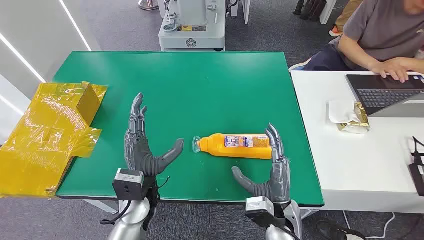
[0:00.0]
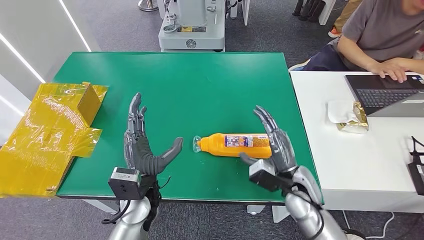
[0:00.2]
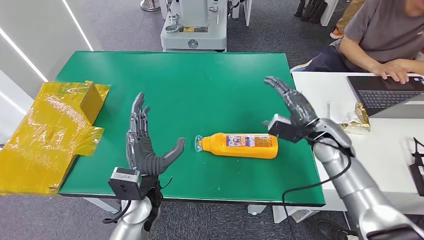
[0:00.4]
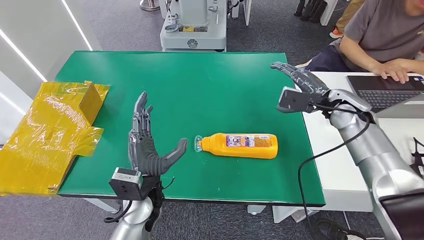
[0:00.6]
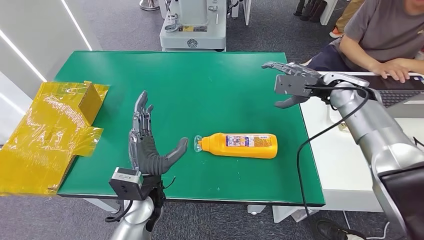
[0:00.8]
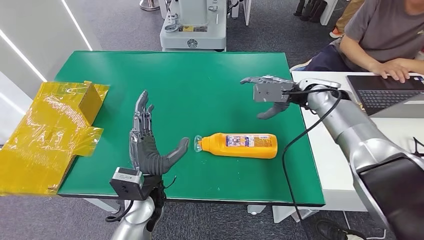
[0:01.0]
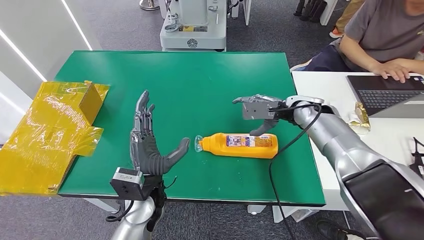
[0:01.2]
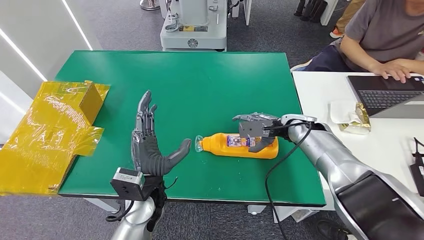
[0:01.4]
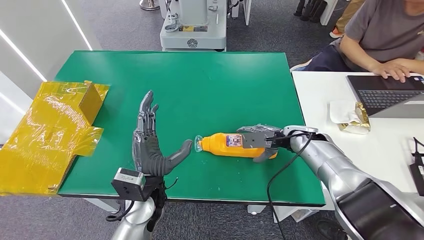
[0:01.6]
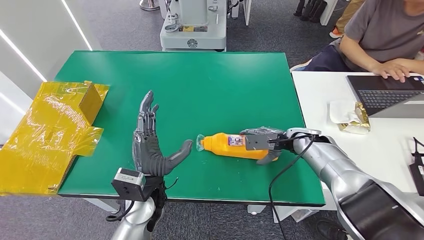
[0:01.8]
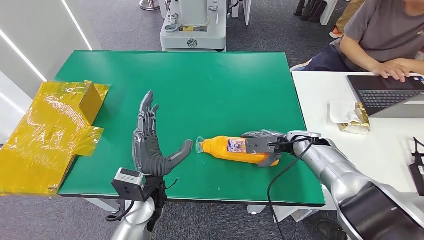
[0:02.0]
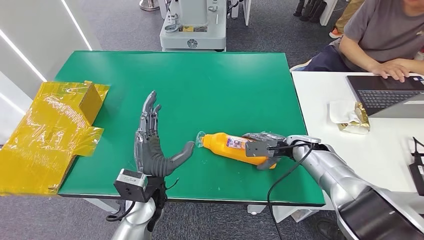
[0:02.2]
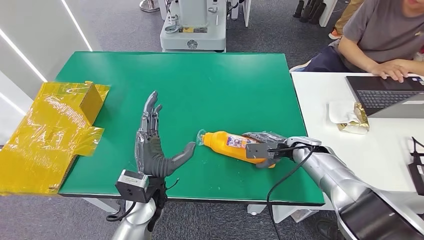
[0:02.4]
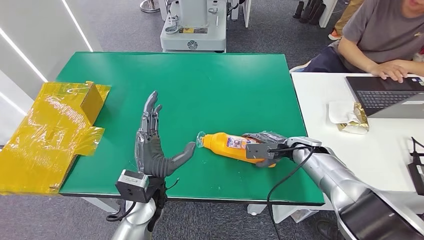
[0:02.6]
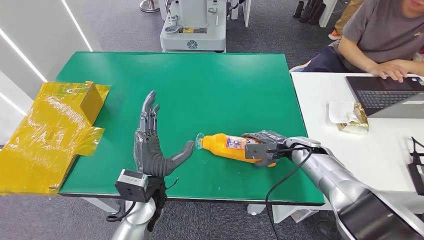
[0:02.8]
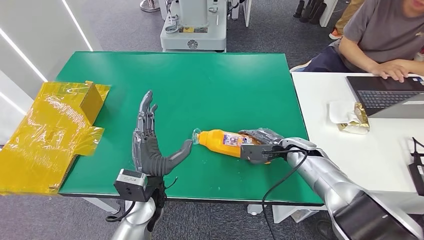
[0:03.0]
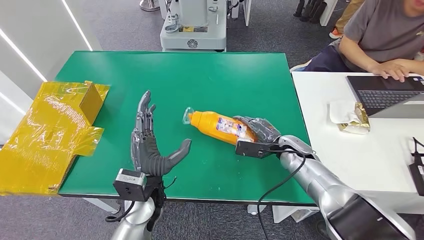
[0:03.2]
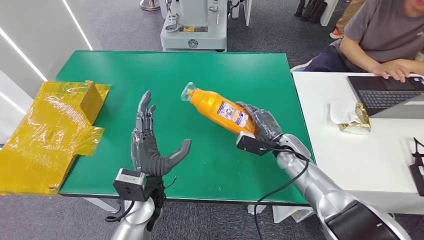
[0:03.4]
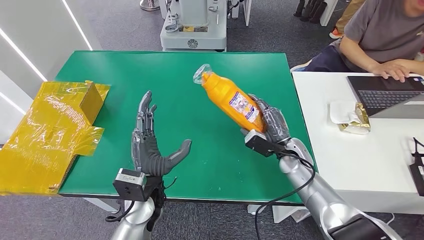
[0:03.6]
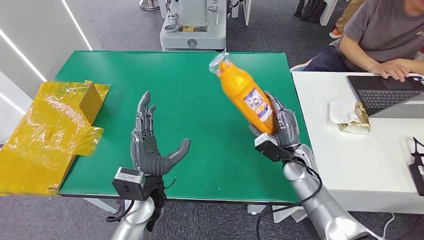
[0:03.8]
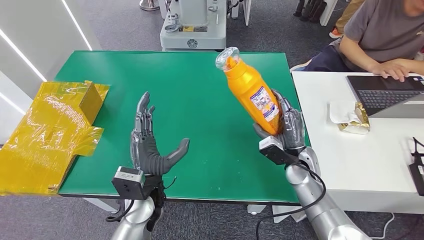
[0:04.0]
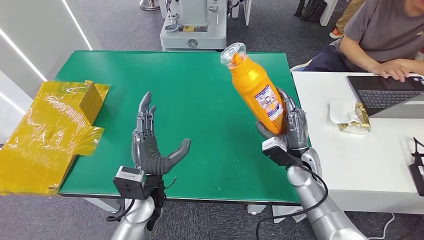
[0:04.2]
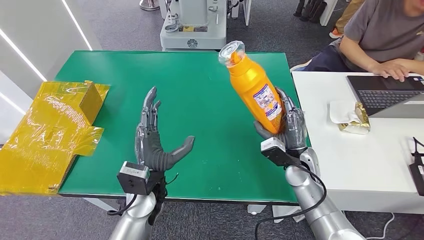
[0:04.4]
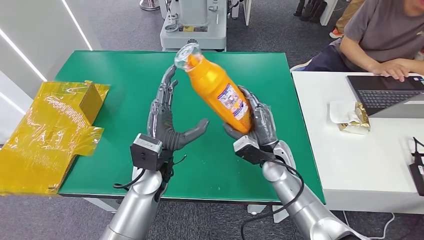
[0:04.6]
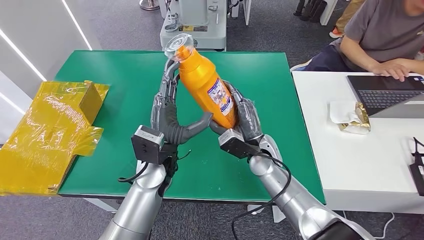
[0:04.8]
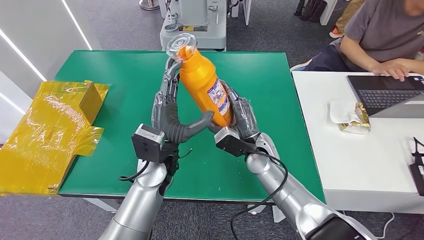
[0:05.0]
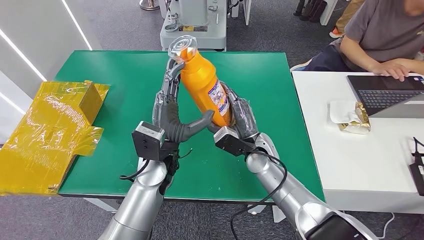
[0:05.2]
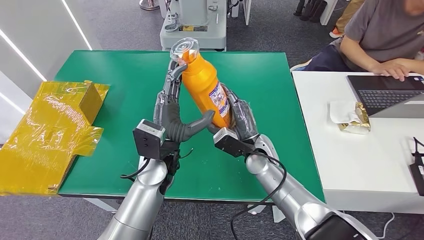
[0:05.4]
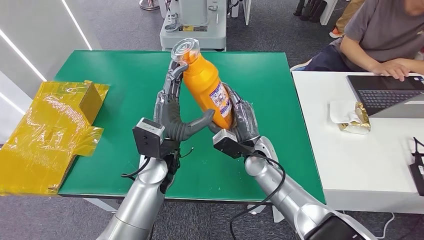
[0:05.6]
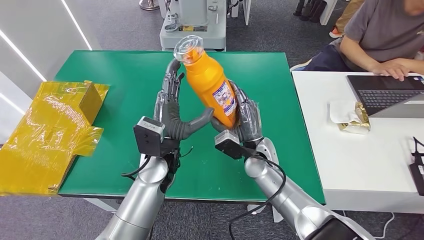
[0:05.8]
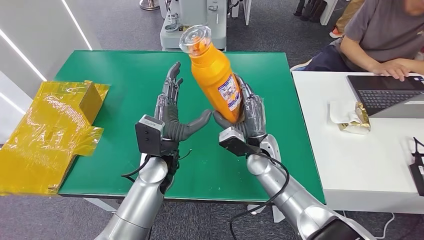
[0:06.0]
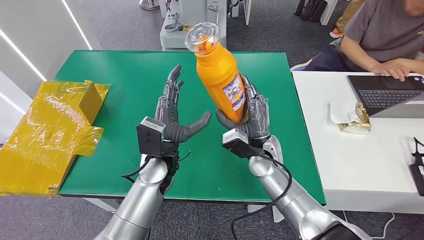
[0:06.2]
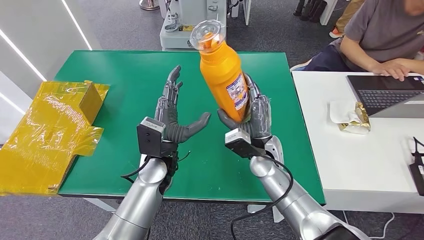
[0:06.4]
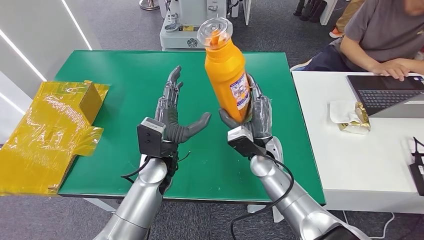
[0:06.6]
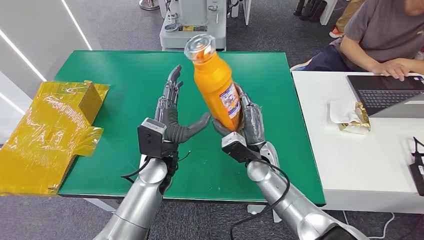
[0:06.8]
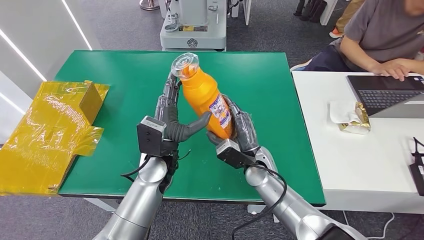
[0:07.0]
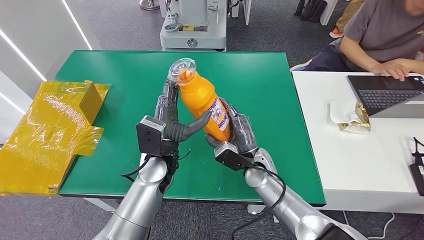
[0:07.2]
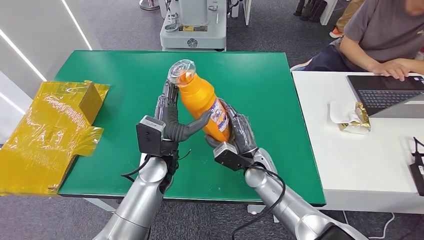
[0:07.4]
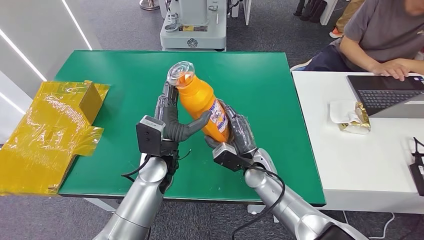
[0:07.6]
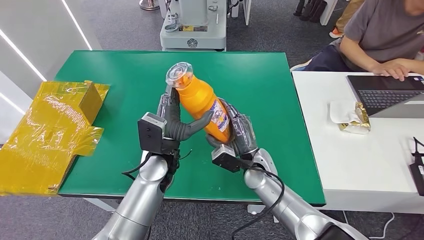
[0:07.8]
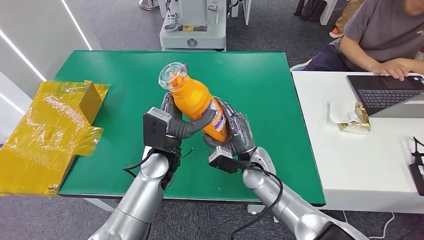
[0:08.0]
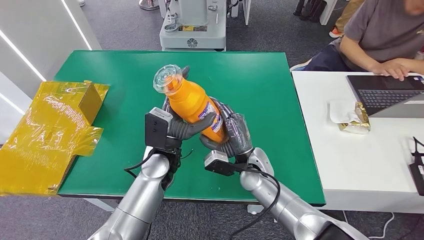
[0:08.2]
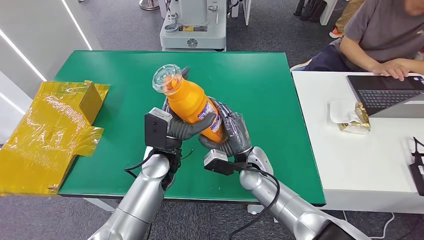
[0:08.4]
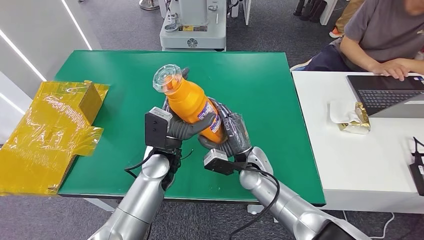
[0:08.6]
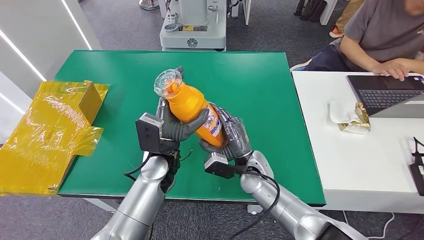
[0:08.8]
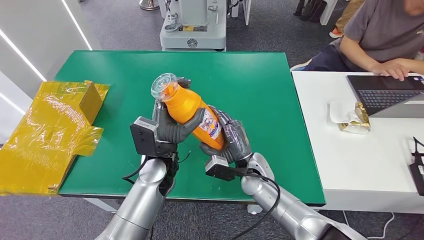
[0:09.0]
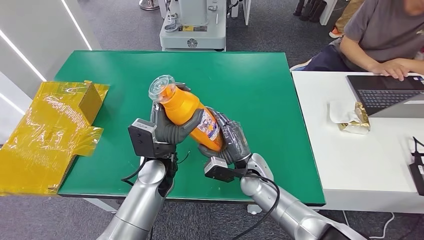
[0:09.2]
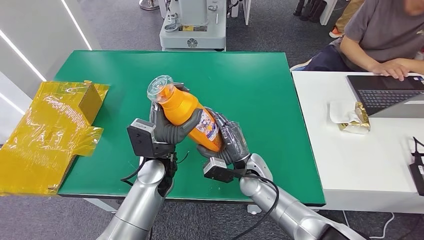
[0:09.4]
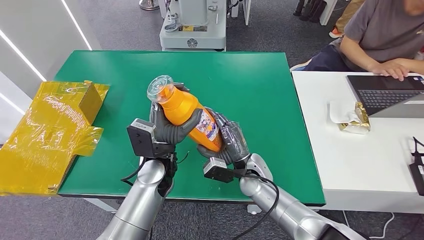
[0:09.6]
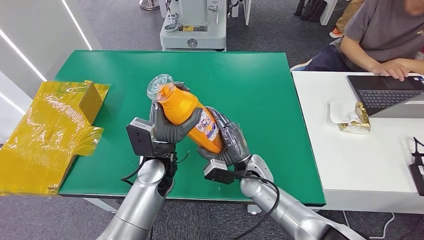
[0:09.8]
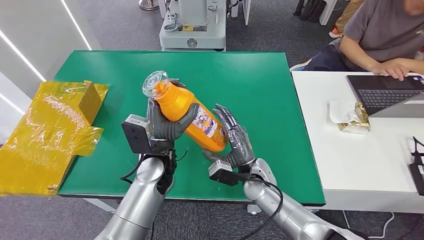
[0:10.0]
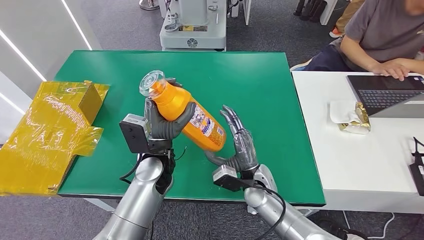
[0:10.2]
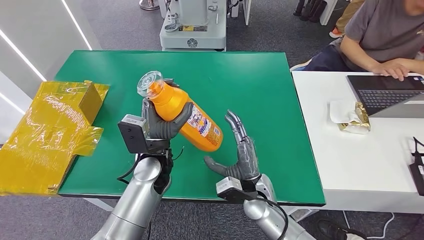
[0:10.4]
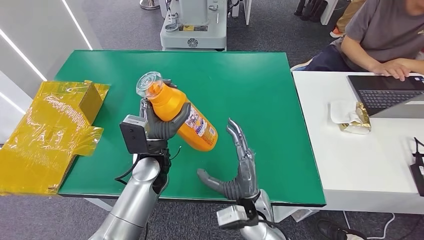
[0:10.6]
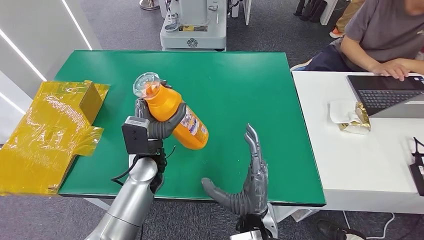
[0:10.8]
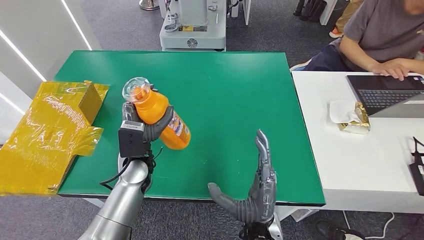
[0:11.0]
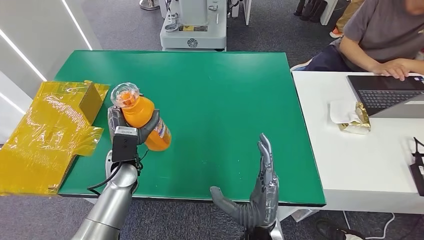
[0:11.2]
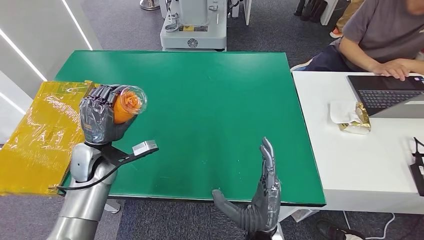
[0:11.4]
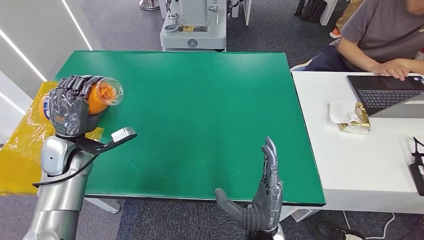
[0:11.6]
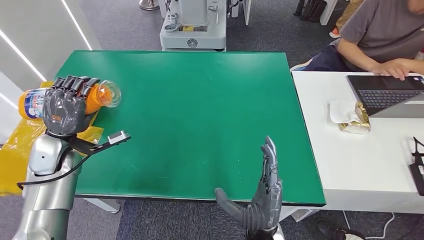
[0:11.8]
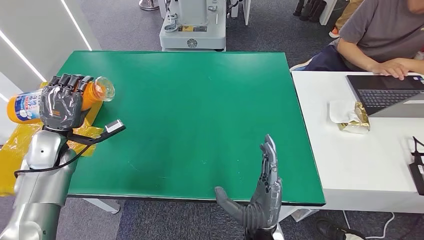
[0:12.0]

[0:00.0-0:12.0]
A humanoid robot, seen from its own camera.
Step, 0:00.0 to 0:06.0: Pick up the bottle from the table.
0:01.6 to 0:03.0: The hands make only small movements.
0:03.0 to 0:04.4: The right hand is displaced backward by about 5 cm.
0:04.4 to 0:06.0: The right hand travels to the left by some 10 cm. The left hand moves about 5 cm.
0:06.0 to 0:09.0: The hands stay close to where they were, moving slightly.
0:09.0 to 0:10.4: The right hand shifts about 5 cm backward.

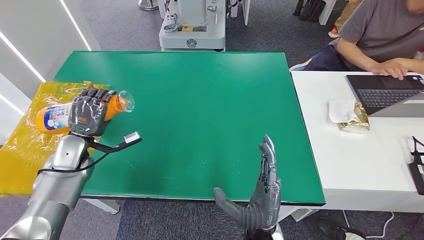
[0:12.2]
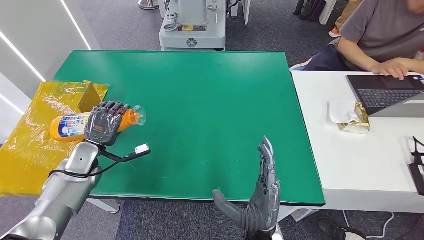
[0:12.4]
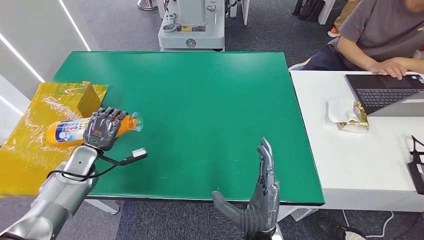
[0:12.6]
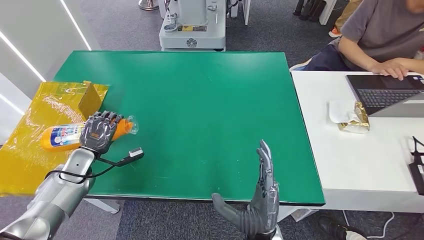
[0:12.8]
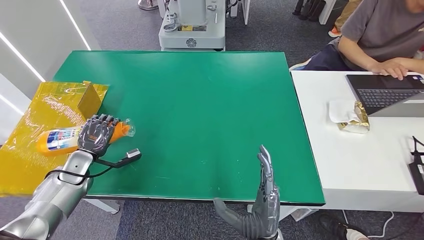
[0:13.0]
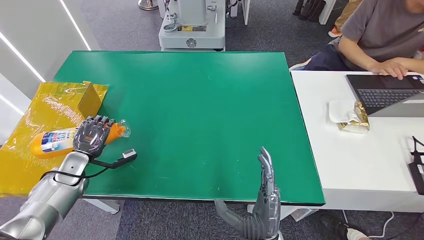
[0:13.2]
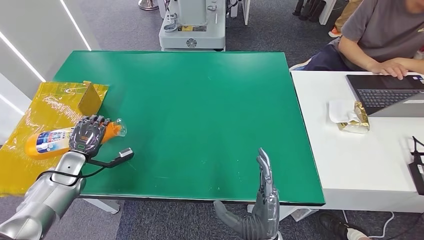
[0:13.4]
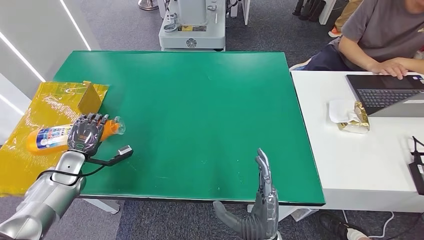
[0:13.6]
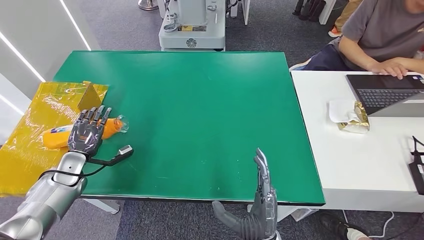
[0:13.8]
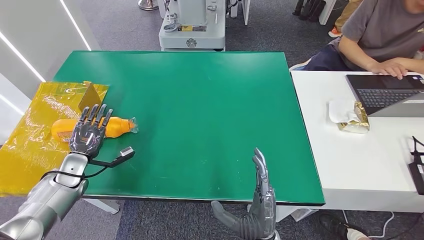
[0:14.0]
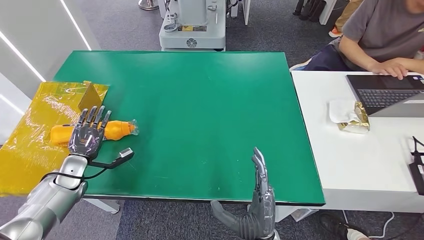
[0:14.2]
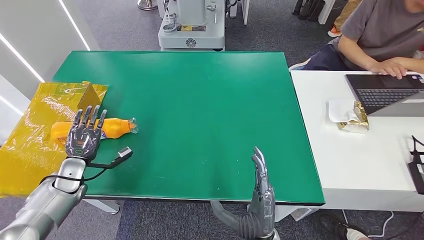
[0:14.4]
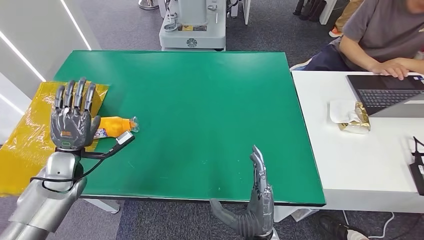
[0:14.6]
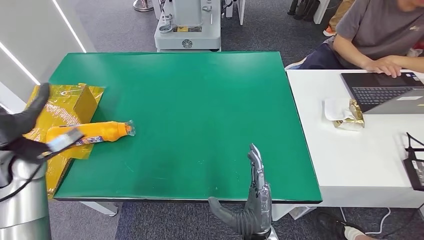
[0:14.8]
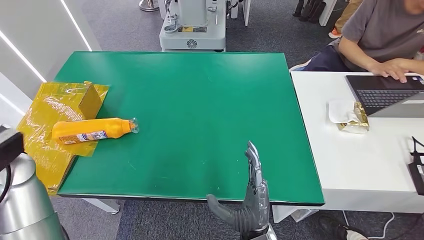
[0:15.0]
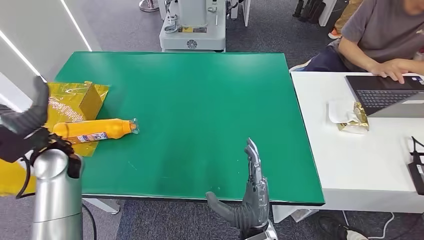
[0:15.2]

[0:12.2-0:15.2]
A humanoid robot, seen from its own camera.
Step, 0:12.2 to 0:15.0: Turn the bottle to the front side.
0:12.2 to 0:13.8: The left hand heads downward and to the left, covering approximately 10 cm.
0:13.8 to 0:15.2: The left hand is displaced upward and to the right by approximately 20 cm.
